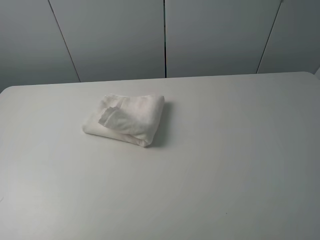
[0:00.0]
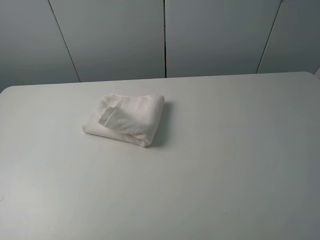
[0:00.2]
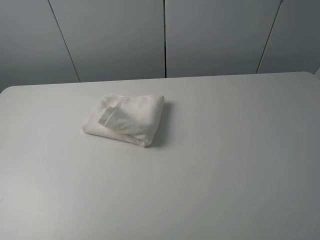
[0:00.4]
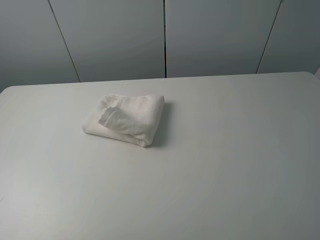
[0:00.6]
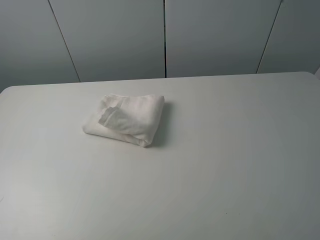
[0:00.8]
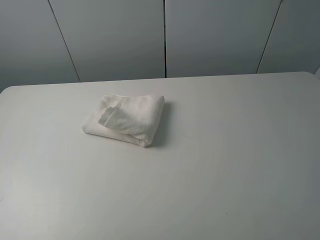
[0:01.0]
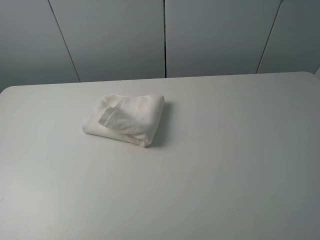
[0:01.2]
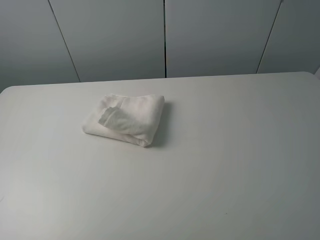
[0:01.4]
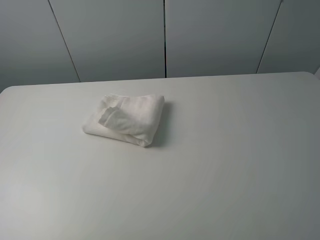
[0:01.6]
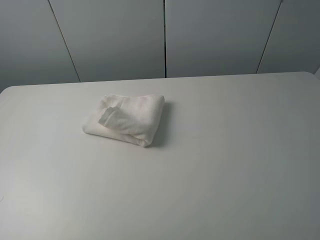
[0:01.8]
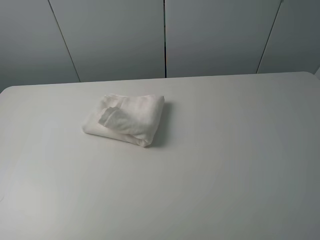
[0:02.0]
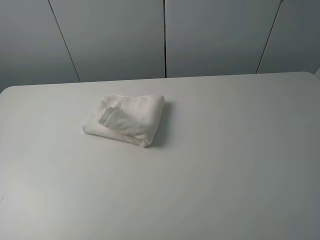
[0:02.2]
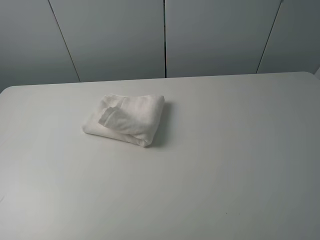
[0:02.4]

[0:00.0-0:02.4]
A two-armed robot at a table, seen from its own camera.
Task of the whole recording: fold the towels on the table.
0:00.0 to 0:02.4: Both grippers stay about where they are.
